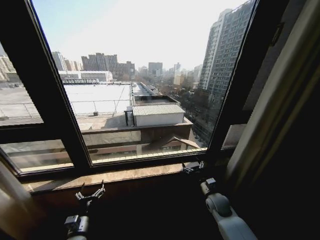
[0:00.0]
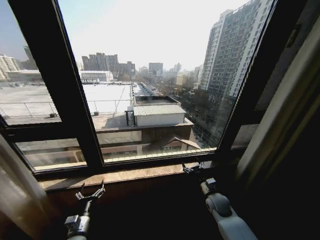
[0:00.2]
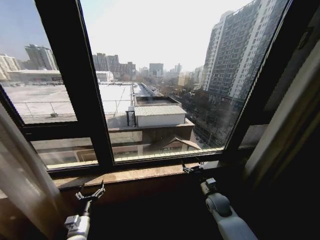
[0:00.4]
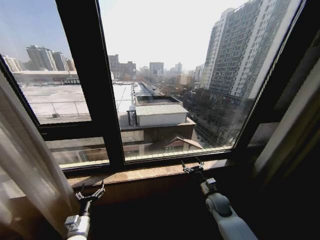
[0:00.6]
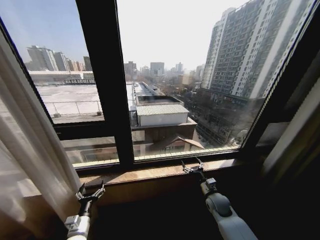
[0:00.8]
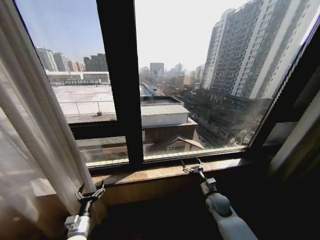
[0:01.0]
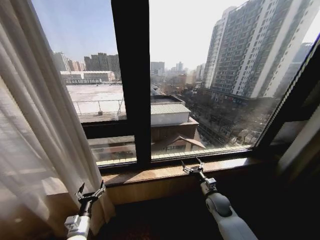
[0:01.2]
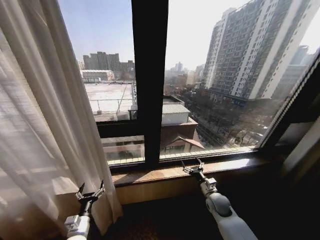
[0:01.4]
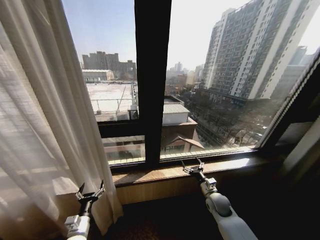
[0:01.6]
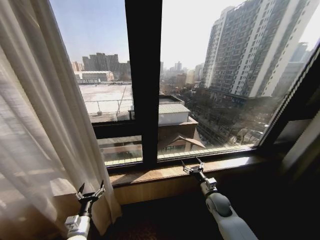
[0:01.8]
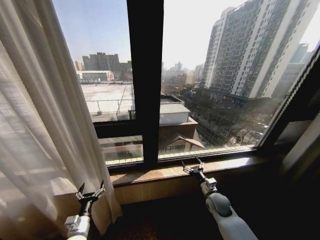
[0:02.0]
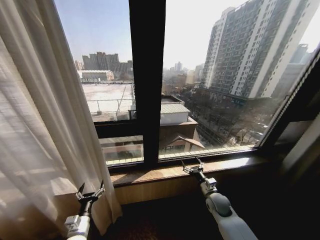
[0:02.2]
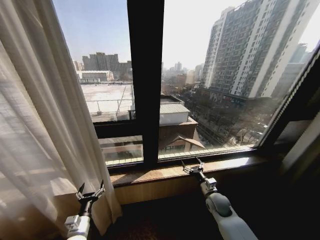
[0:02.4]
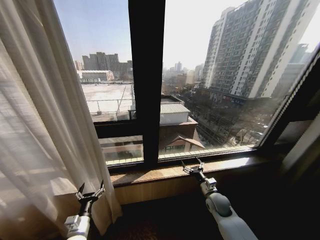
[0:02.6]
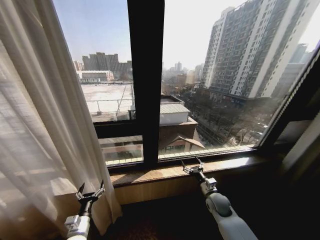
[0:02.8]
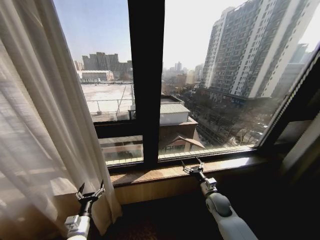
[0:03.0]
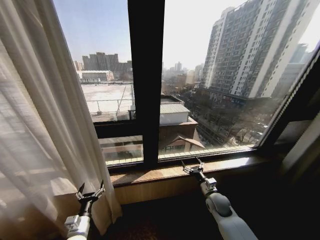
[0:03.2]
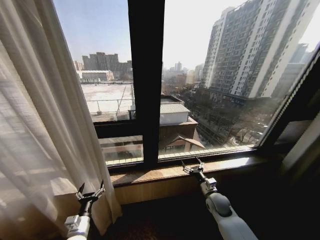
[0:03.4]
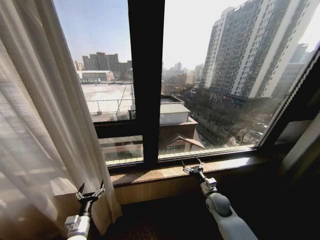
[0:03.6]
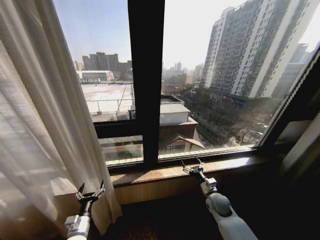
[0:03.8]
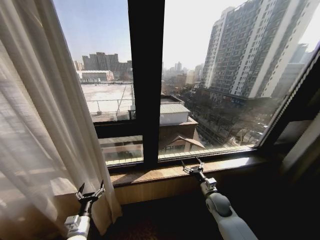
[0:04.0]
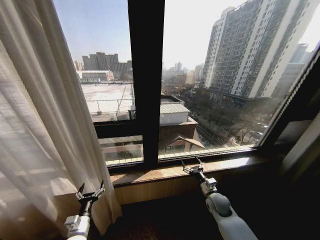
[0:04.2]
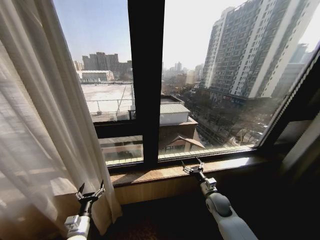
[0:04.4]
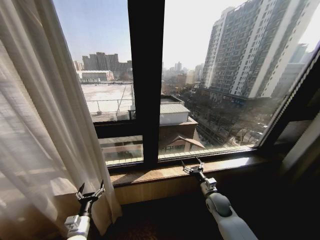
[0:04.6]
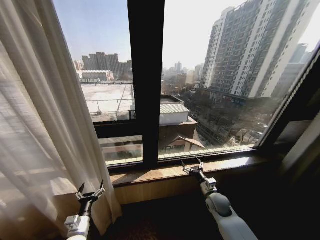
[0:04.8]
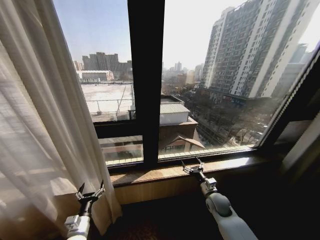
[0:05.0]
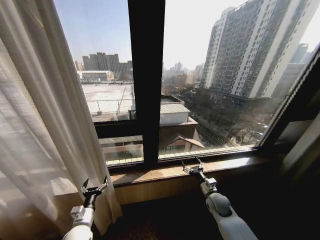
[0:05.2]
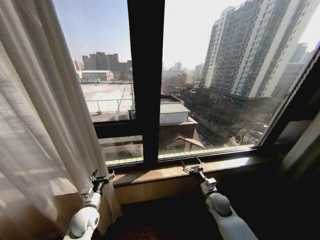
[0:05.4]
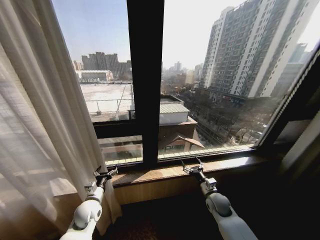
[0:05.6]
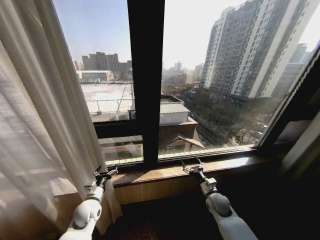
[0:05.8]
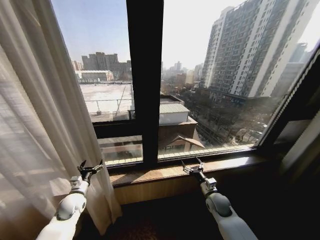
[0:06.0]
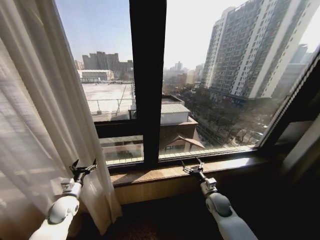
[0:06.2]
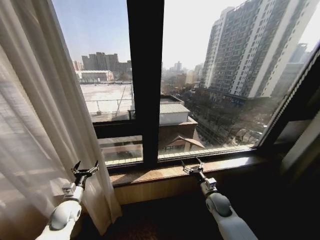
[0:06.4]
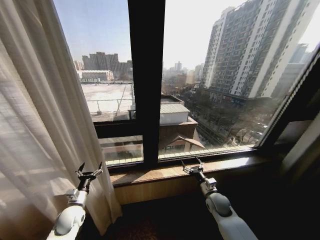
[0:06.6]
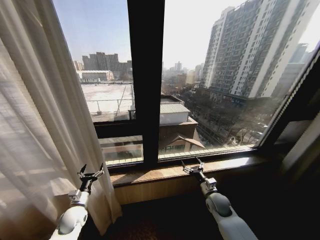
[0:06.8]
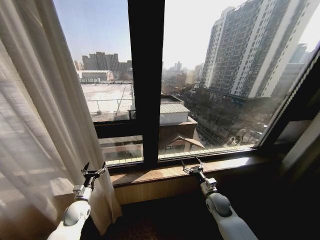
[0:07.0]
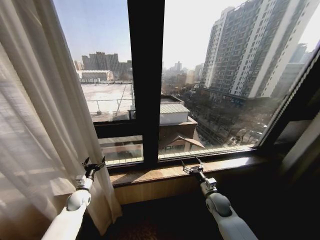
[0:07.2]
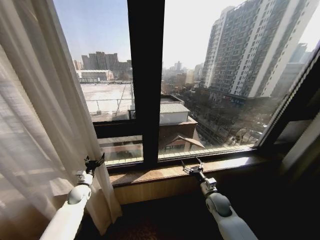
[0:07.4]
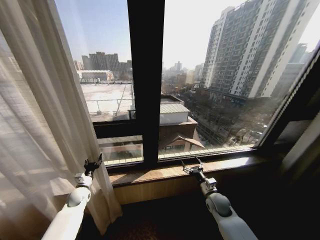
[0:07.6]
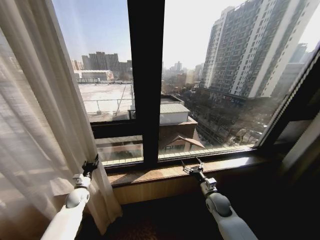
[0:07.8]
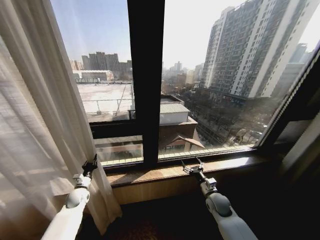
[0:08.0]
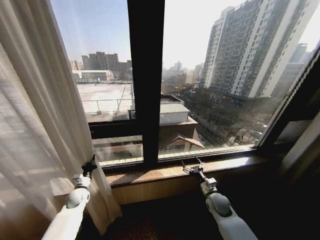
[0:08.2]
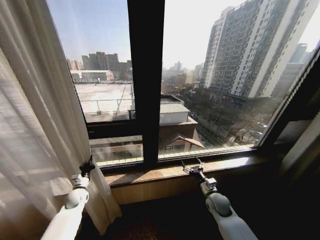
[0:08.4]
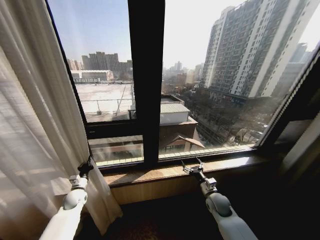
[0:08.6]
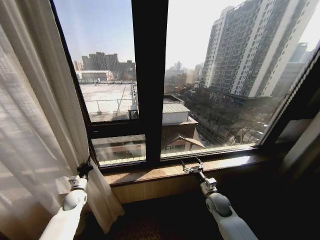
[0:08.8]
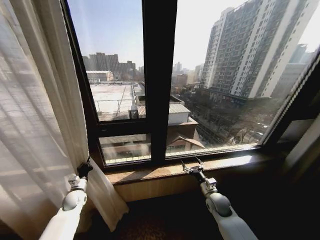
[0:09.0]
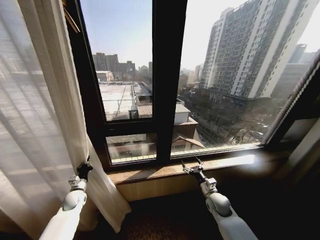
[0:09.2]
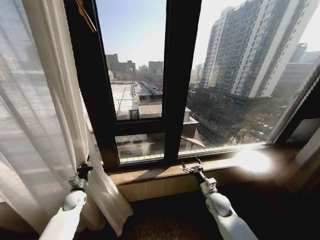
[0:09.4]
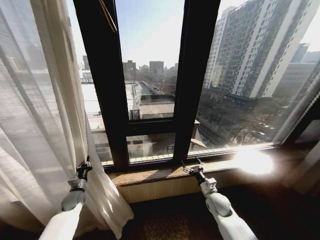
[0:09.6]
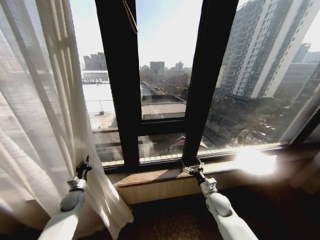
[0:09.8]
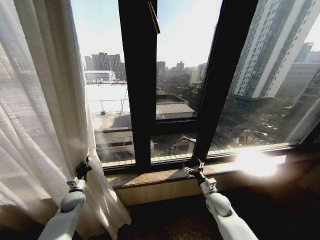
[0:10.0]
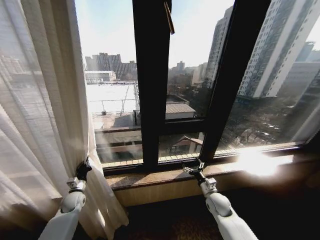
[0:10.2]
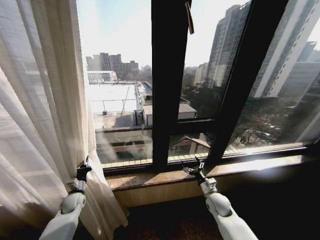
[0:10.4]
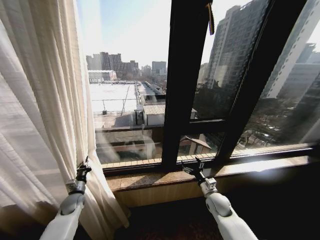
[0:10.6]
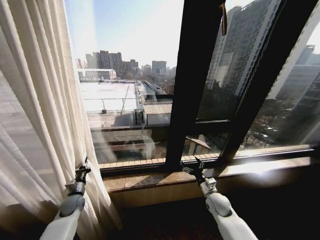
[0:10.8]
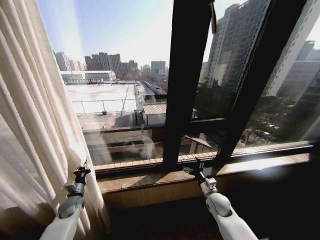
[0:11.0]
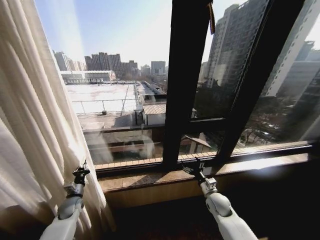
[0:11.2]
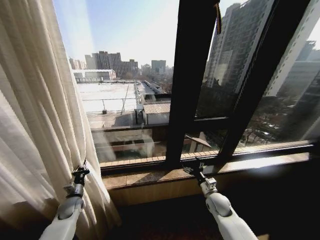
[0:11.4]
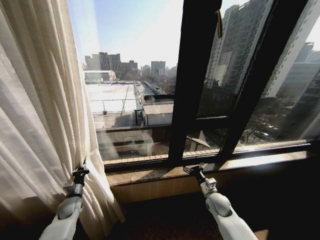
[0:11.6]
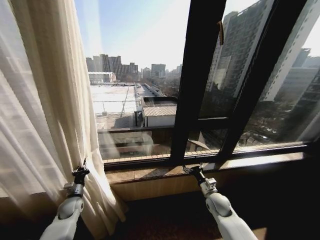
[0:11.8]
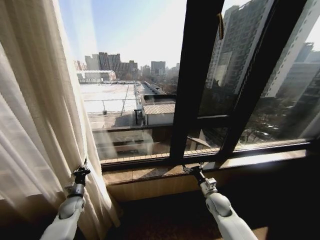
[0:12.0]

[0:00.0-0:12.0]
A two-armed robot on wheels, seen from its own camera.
Task of the whole recording: Open the curtains by pulling them apart, changing their state from closed to fully open.
0:01.6 to 0:04.4: The two grippers keep their place.
0:04.4 to 0:06.0: The left gripper heads forward, upward and to the left, covering approximately 15 cm.
0:06.0 to 0:07.6: The left gripper goes roughly 10 cm forward and downward.
0:07.6 to 0:09.0: The left gripper closes its fingers.

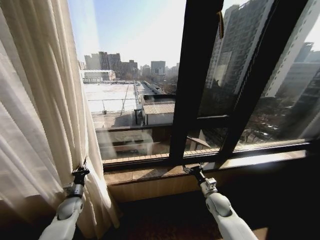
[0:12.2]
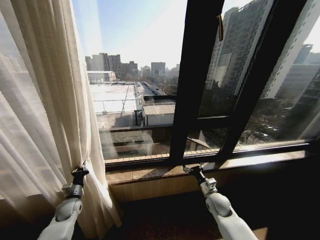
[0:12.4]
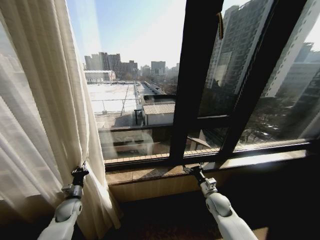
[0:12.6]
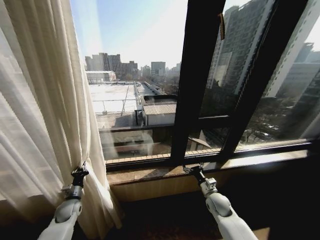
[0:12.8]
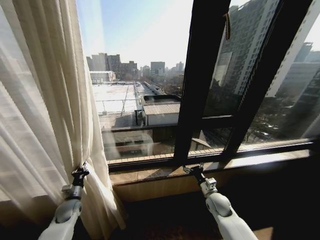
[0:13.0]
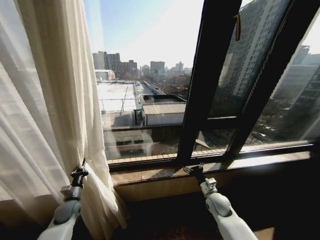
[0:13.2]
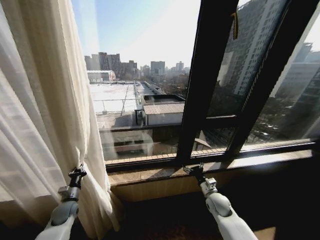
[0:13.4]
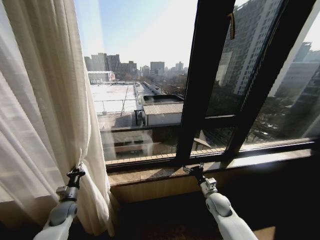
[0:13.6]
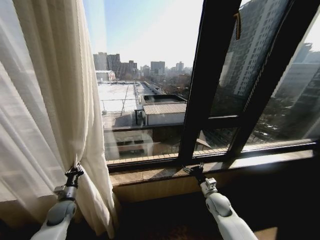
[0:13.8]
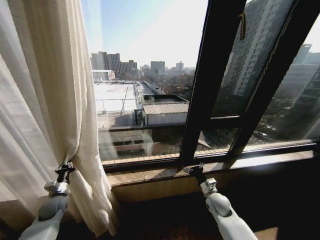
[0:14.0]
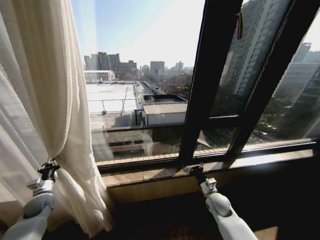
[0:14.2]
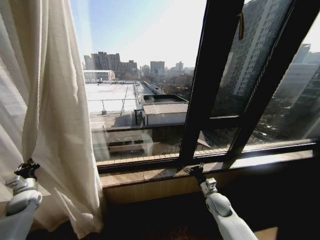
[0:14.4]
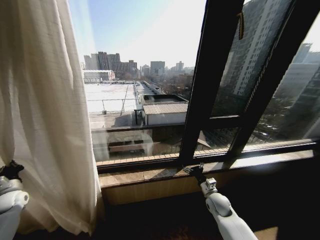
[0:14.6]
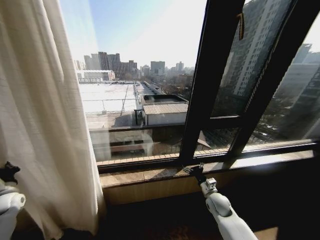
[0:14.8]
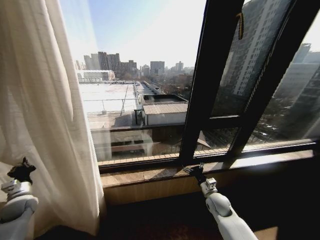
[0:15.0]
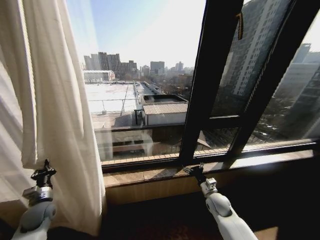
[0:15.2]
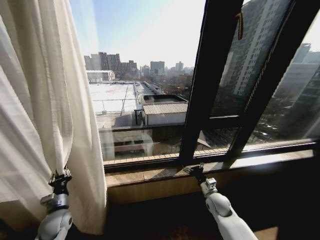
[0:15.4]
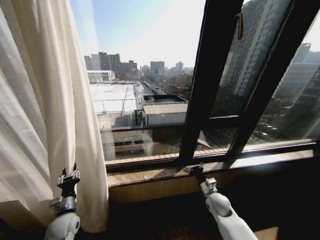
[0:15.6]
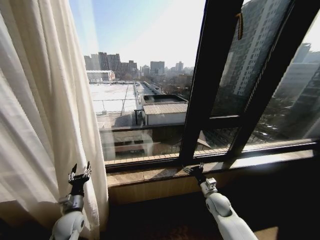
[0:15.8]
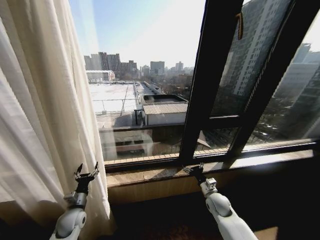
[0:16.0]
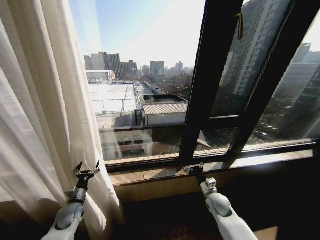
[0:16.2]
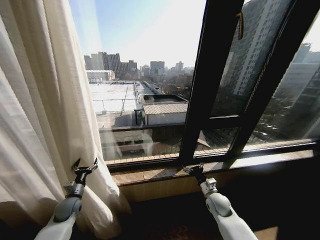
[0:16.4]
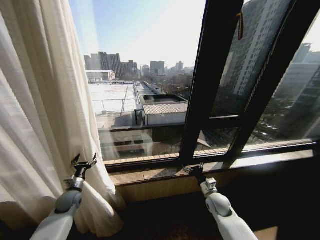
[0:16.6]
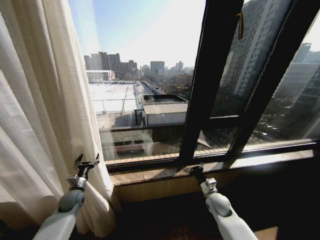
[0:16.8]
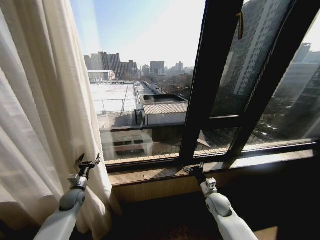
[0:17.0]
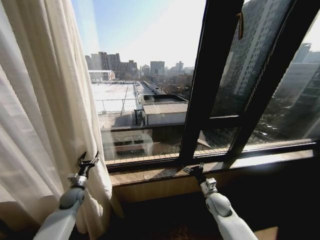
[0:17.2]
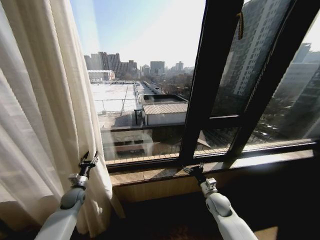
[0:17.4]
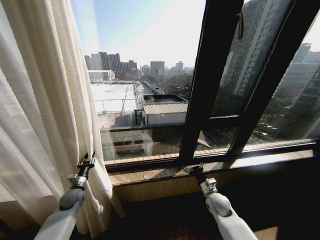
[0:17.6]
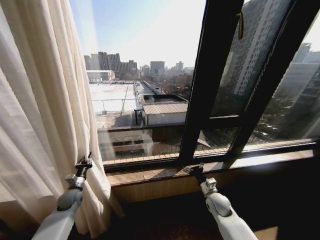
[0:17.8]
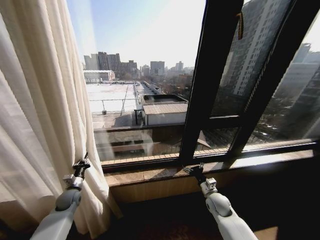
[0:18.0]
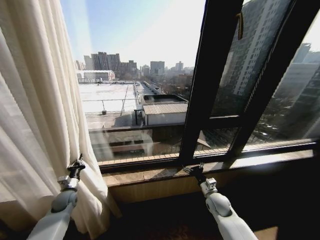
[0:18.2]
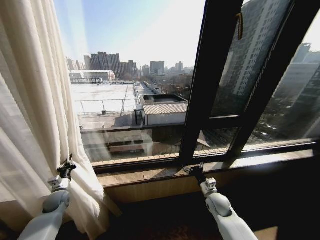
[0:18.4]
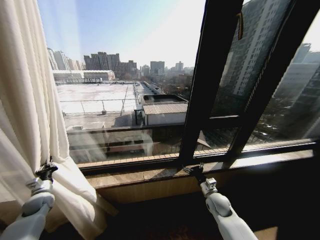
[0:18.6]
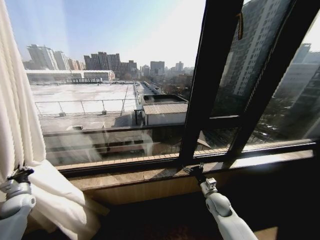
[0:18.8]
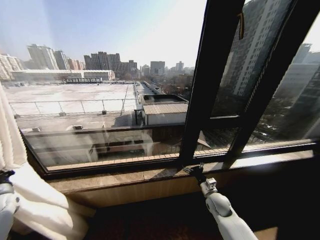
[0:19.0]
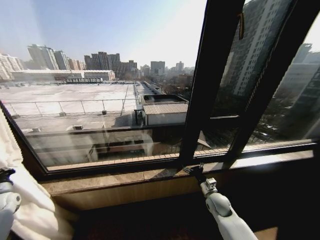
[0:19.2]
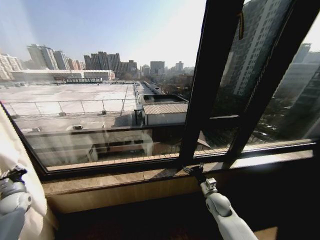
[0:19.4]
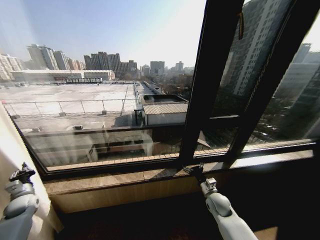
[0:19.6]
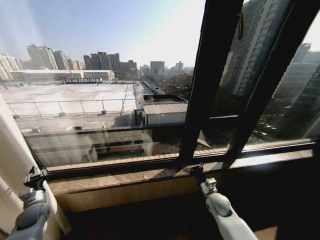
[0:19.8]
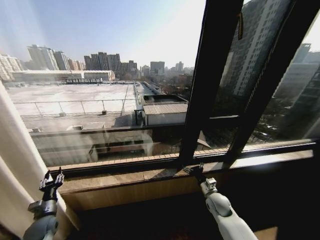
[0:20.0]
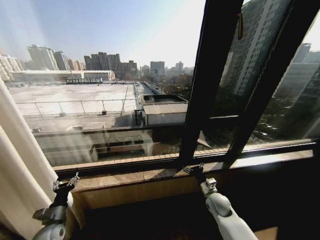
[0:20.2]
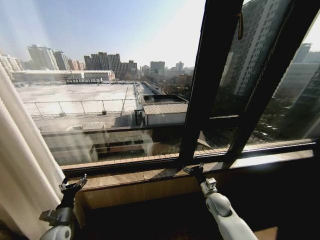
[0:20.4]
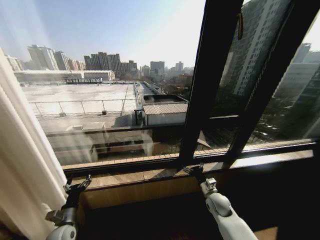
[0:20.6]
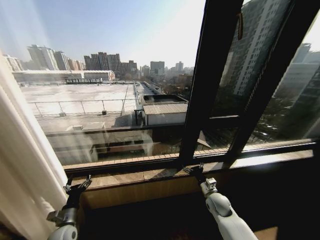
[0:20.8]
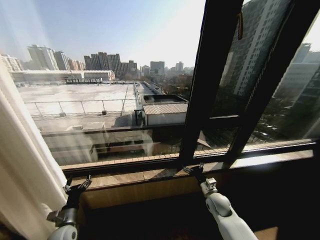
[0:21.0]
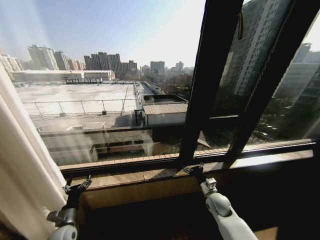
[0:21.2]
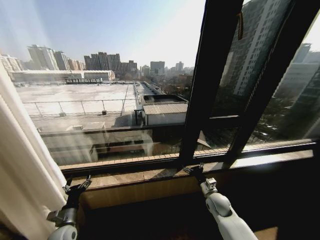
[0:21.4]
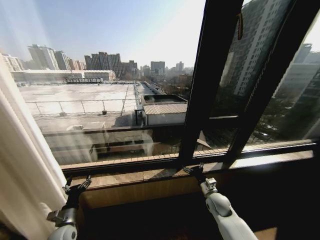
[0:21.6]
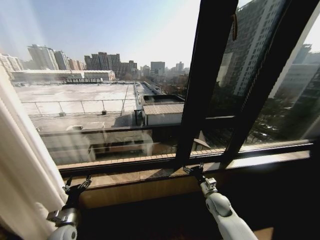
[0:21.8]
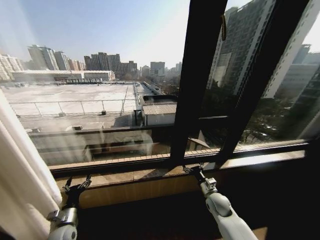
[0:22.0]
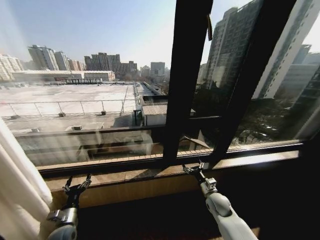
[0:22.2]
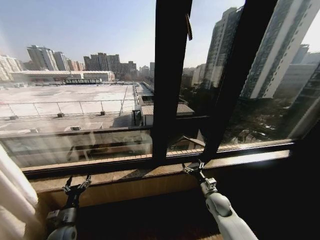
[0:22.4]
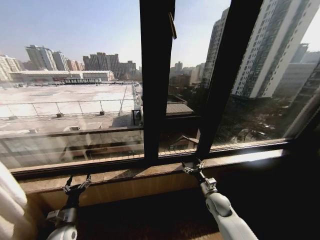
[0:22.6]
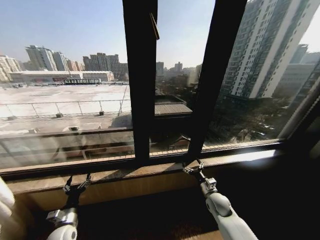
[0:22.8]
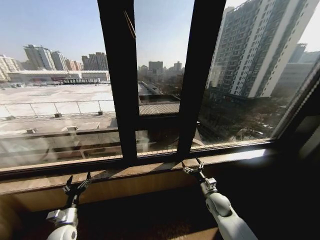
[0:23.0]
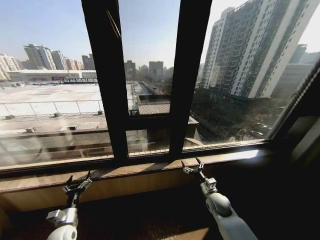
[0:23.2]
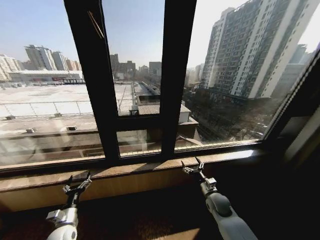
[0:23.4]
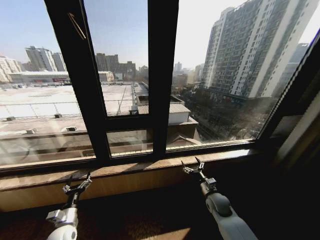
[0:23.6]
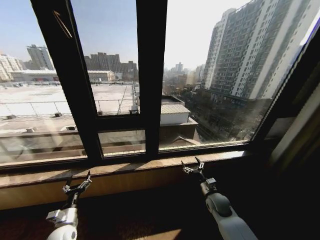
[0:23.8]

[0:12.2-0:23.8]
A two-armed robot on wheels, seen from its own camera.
Task of the whole recording: Open the curtains by pulling them apart, changing their state from closed to fully open.
0:13.6 to 0:15.0: The left gripper is displaced to the left and upward by about 20 cm.
0:15.0 to 0:16.6: The left gripper travels to the right by roughly 20 cm, and opens.
0:16.6 to 0:18.0: The left gripper closes its fingers.
0:18.0 to 0:19.4: The left gripper heads to the left, covering some 20 cm.
0:19.4 to 0:21.0: The left gripper is displaced to the right and backward by roughly 30 cm, and opens up.
